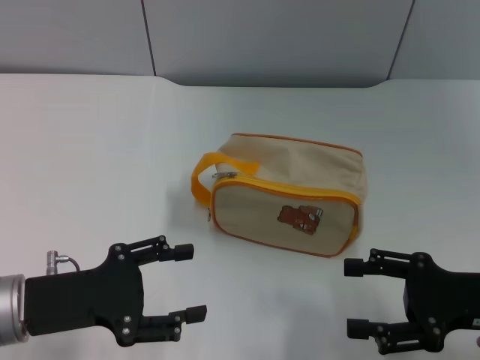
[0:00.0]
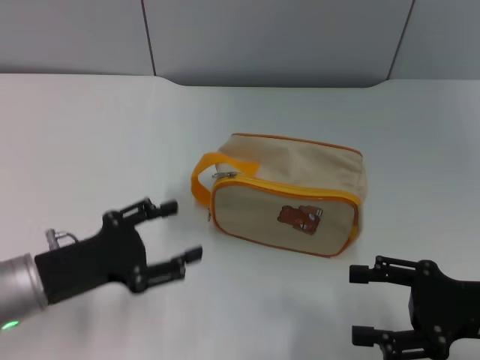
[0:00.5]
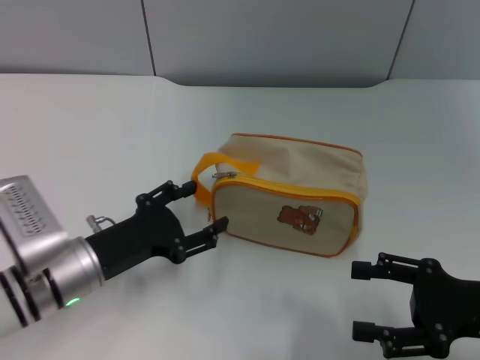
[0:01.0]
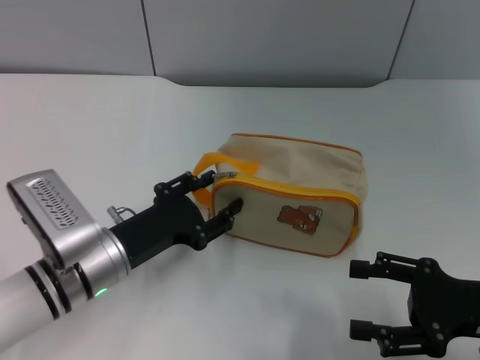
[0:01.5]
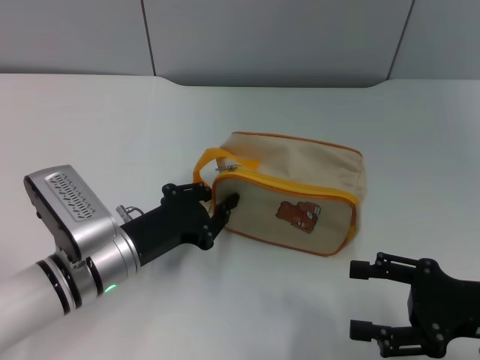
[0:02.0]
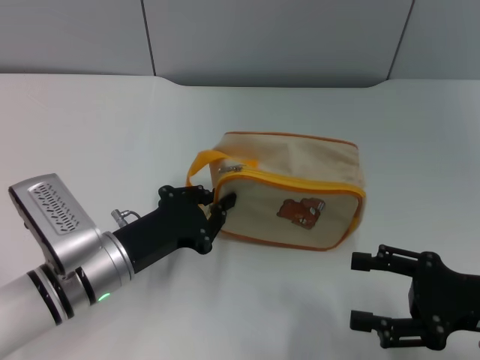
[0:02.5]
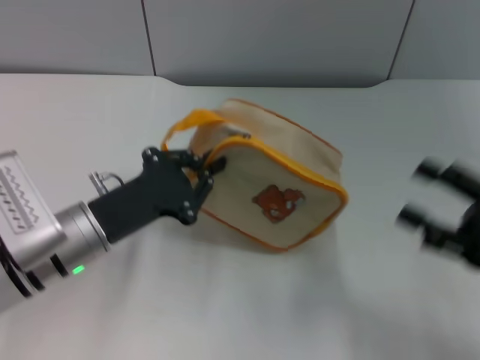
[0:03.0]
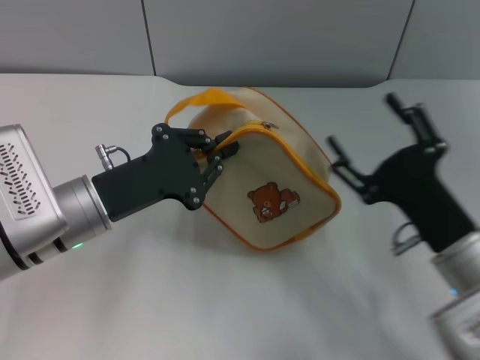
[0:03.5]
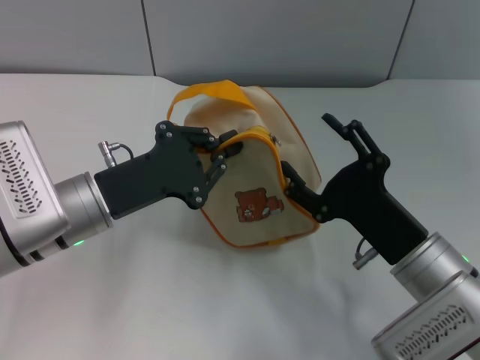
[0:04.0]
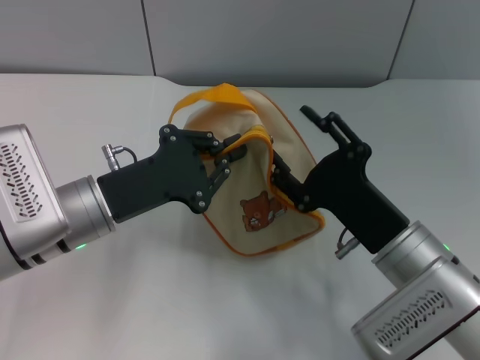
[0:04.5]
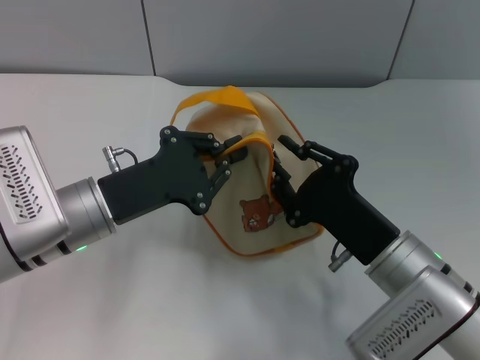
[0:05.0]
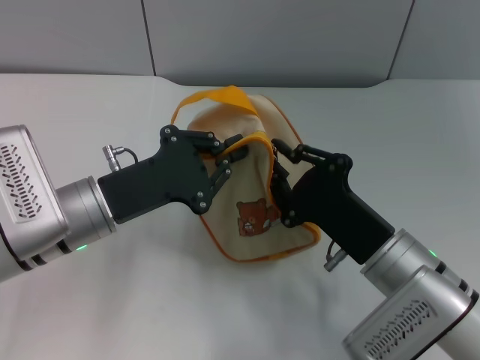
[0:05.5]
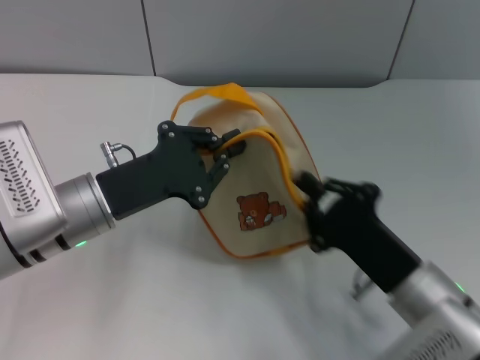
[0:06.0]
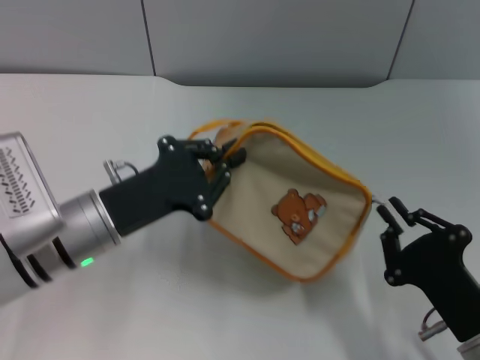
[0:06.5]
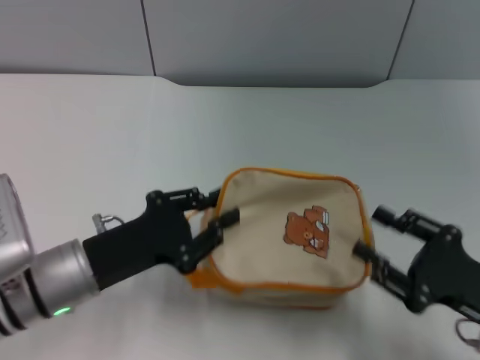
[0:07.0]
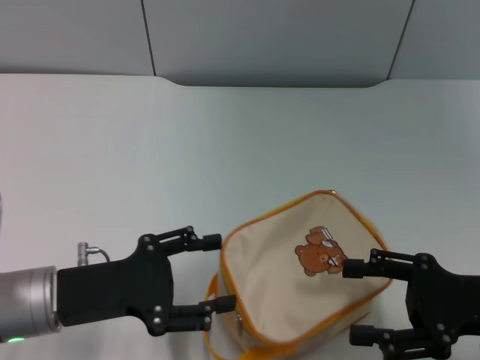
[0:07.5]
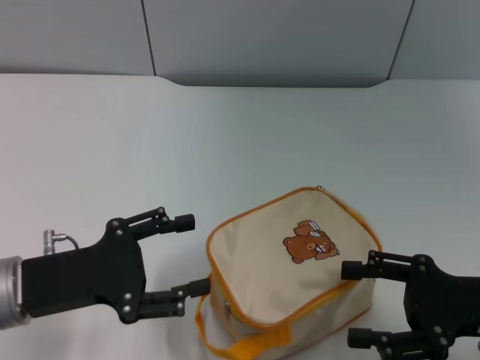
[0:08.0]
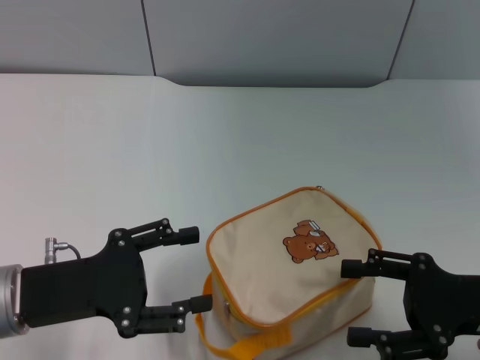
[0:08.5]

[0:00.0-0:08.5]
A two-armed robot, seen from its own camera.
Step, 0:00.0 to 0:02.5: Pick up the bag with left gripper.
Step, 0:03.0 to 0:06.5: Unzip the zipper of bag with right gripper.
Step, 0:07.0 to 0:07.5: Place the bag on the table with left gripper.
0:00.0 to 0:02.0: The left gripper goes roughly 10 cm to the right and forward, and closes.
0:02.0 to 0:04.0: The right gripper heads to the left, covering approximately 10 cm, while the left gripper shifts about 5 cm upward, and closes up.
0:04.0 to 0:06.5: The right gripper shifts some 5 cm backward, and closes.
0:06.5 to 0:08.5: The right gripper goes about 10 cm upward, forward and to the right, and opens, while the left gripper shifts roughly 10 cm to the left and backward, and opens up.

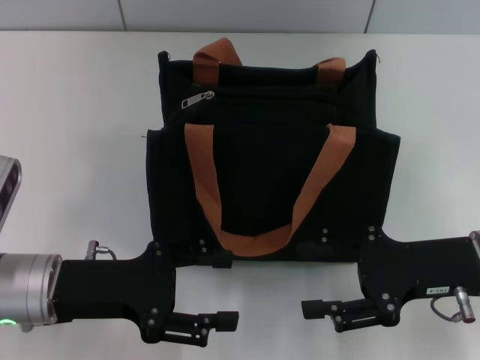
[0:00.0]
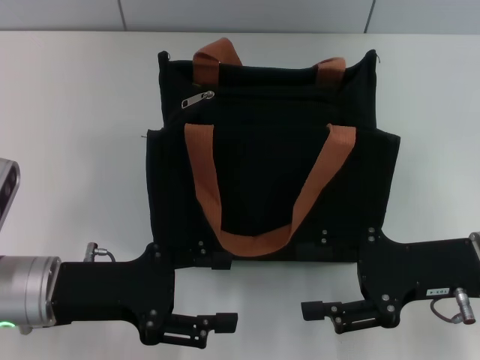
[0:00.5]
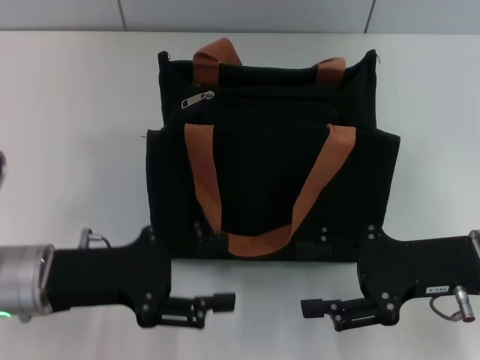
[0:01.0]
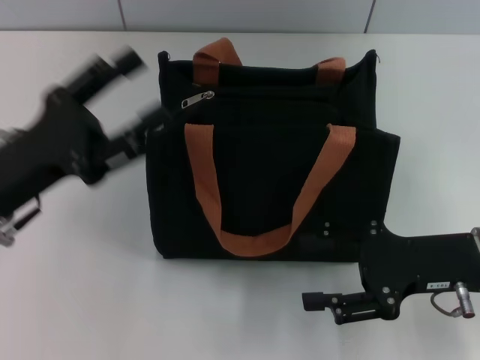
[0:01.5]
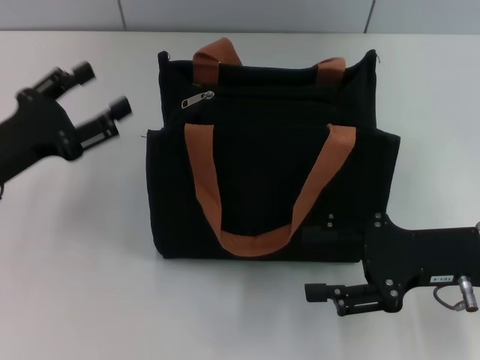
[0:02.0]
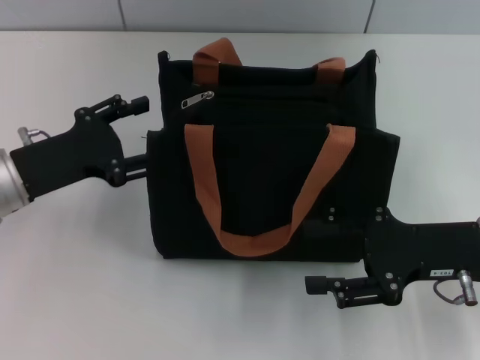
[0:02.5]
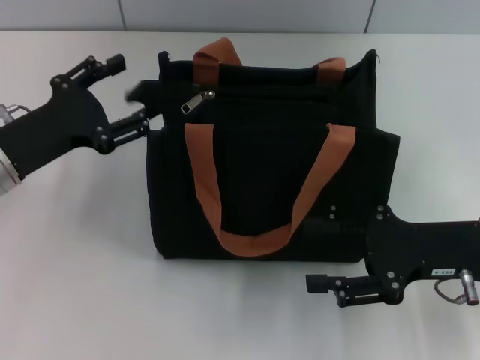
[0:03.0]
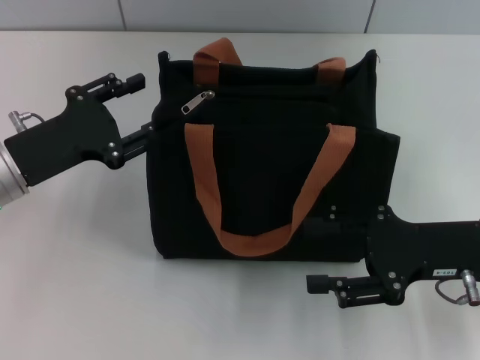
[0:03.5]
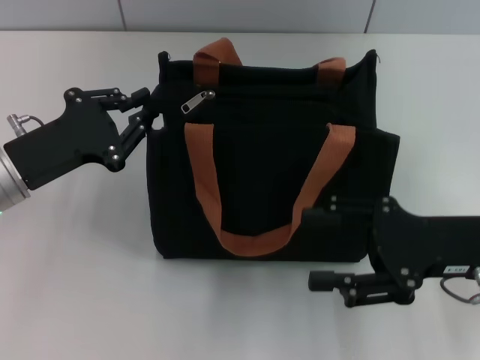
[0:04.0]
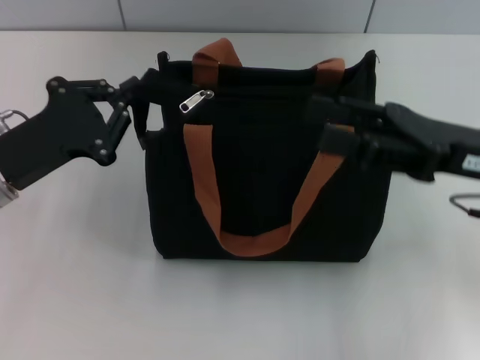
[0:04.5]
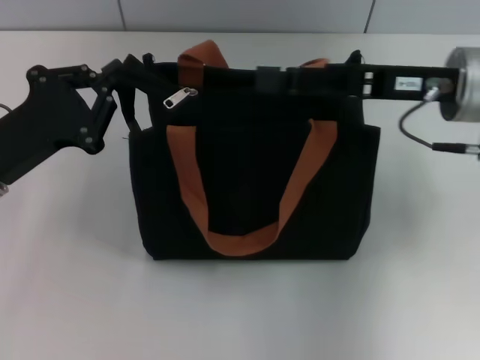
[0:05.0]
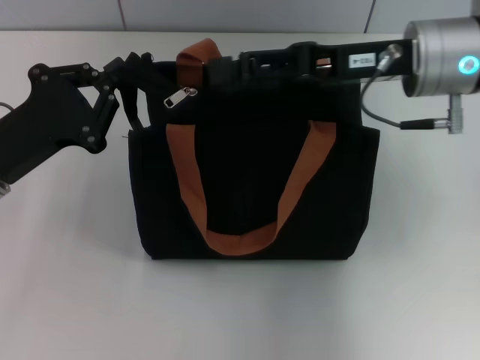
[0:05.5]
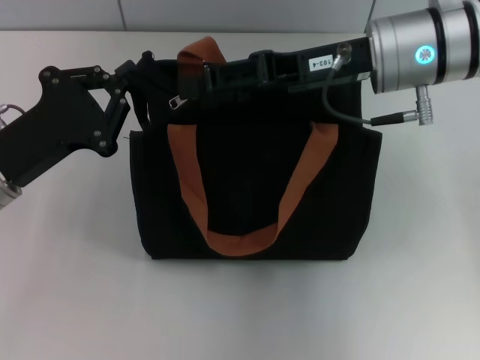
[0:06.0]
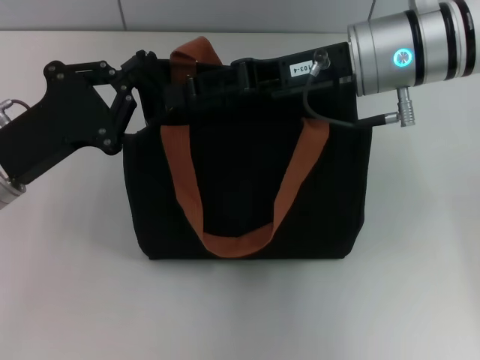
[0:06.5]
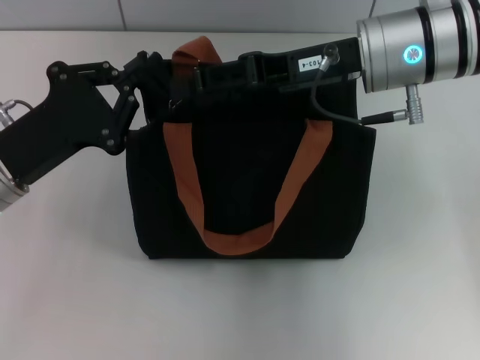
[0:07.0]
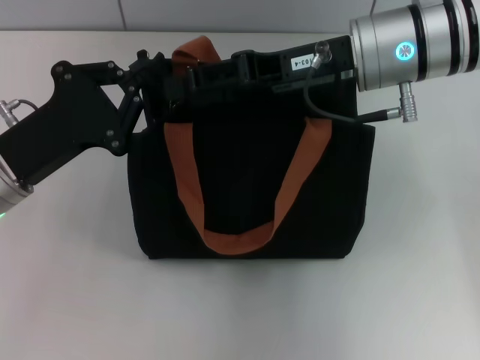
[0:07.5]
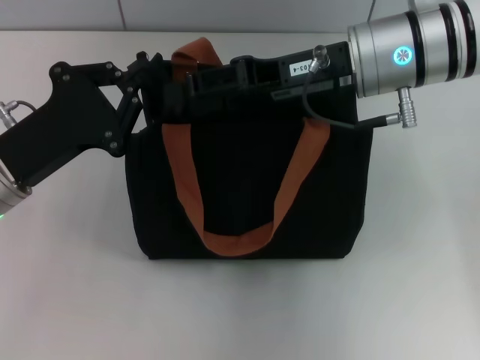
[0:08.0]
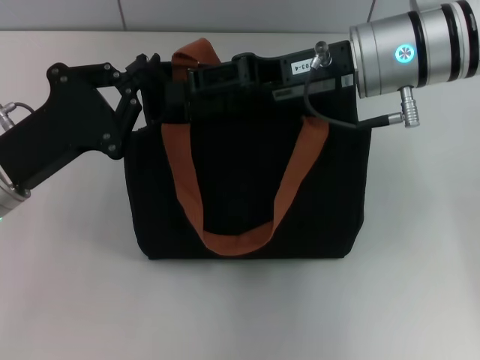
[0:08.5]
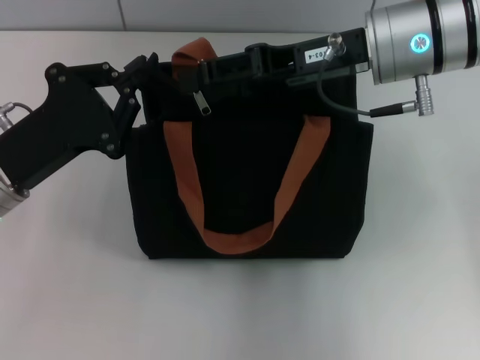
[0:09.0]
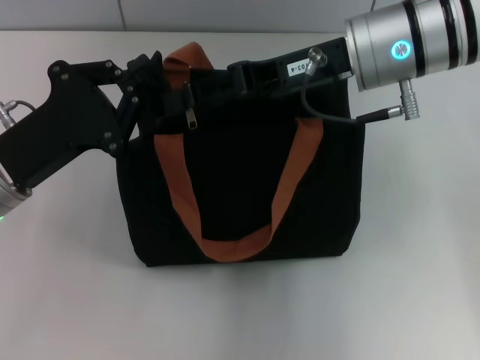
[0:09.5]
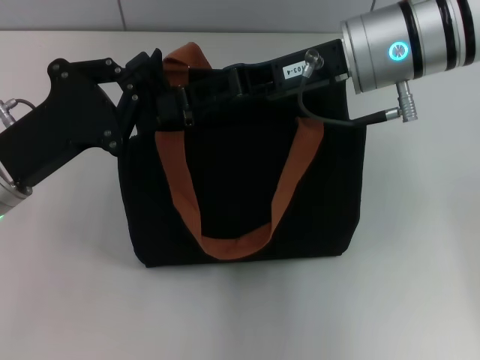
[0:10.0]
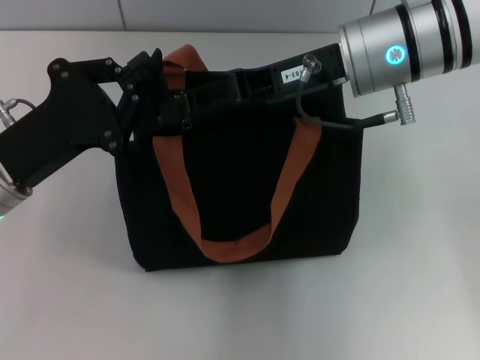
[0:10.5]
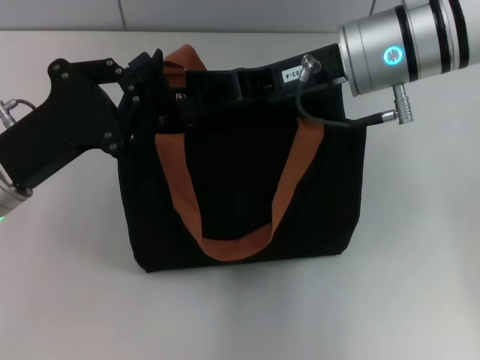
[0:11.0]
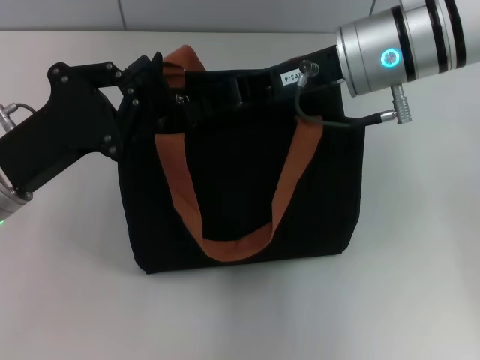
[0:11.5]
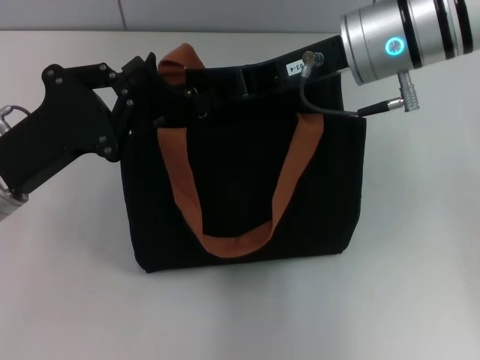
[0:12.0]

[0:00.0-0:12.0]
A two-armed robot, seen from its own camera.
0:00.0 to 0:02.0: The left gripper heads to the left and forward, covering approximately 10 cm.
0:02.0 to 0:04.0: The left gripper closes.
0:04.0 to 0:06.0: The right gripper is displaced forward, to the left and upward by some 20 cm.
0:06.0 to 0:10.0: The grippers stay close to where they were, moving slightly.
0:10.0 to 0:12.0: The right gripper closes up.

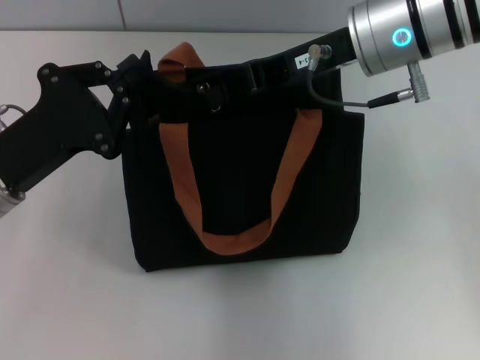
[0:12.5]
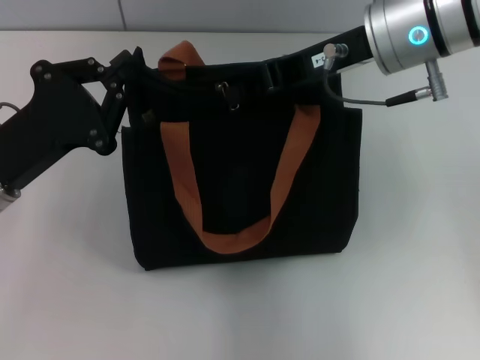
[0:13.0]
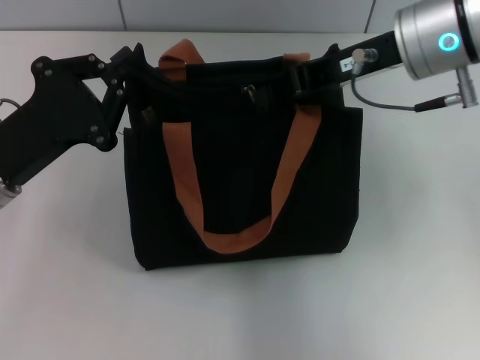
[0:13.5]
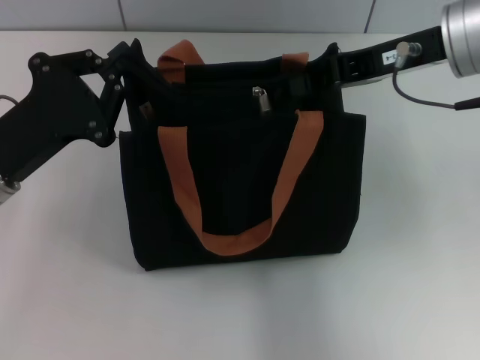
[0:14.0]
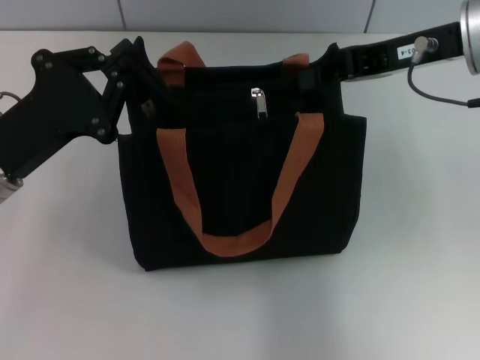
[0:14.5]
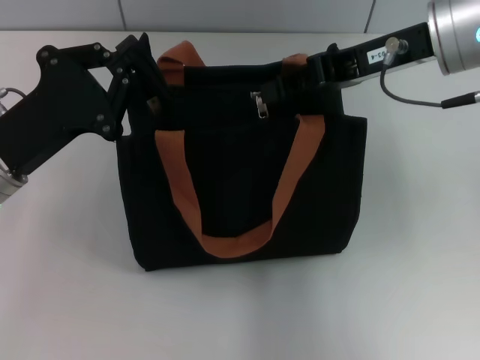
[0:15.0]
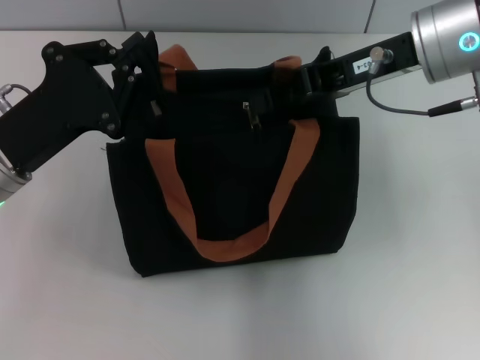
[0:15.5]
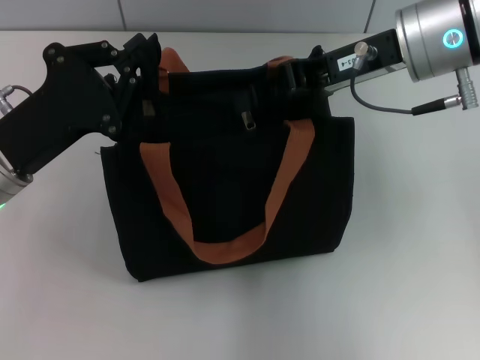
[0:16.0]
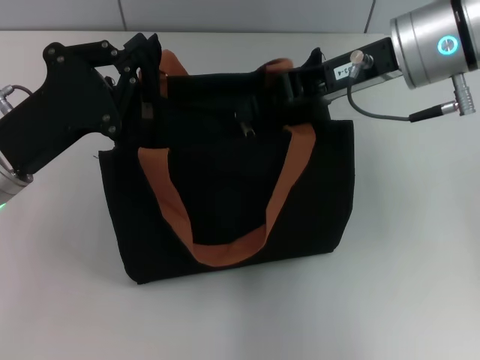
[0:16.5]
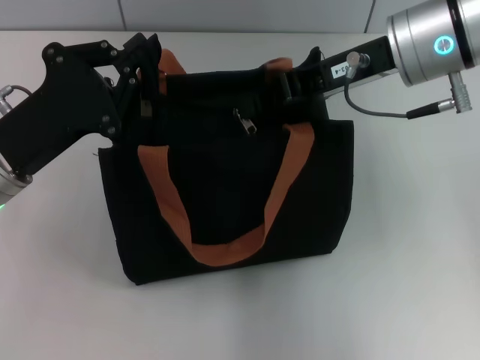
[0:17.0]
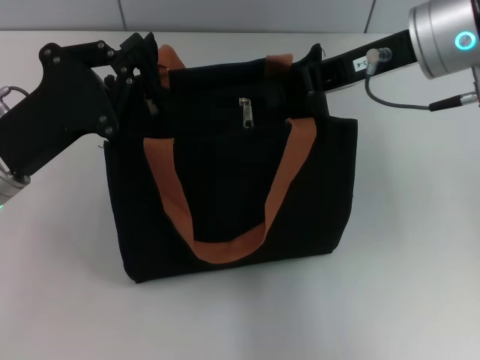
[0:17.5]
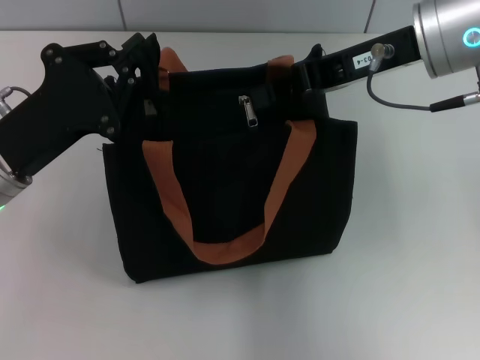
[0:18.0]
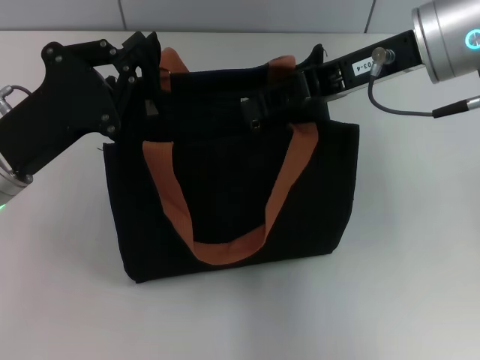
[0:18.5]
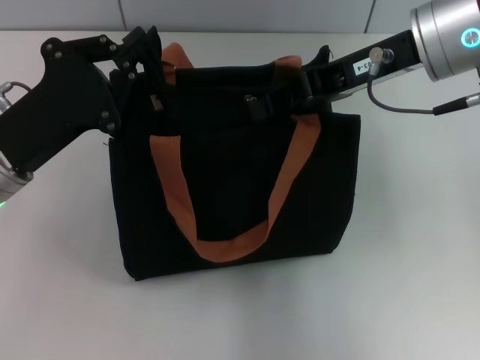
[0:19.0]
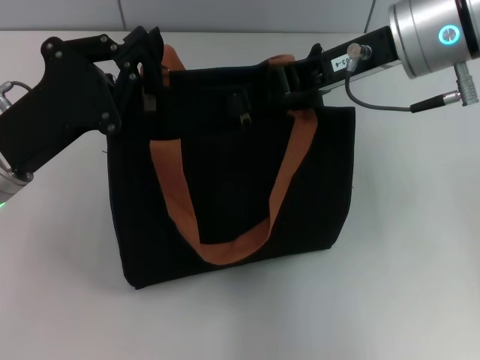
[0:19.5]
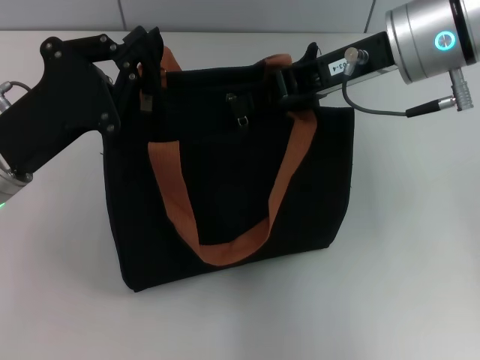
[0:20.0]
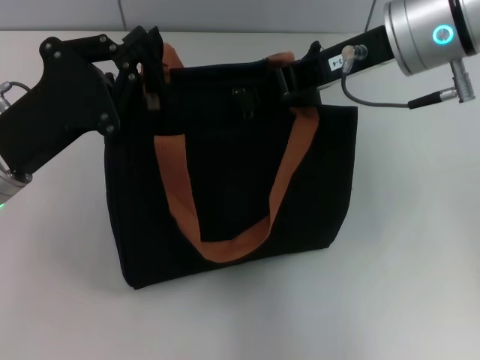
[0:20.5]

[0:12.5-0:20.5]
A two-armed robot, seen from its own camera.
0:12.5 to 0:14.5: The right gripper travels to the right by approximately 10 cm.
0:14.5 to 0:20.5: There are only small adjustments of the grippers.
